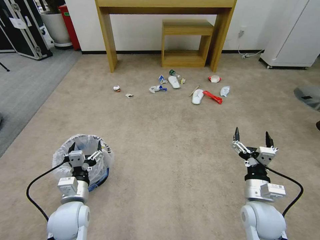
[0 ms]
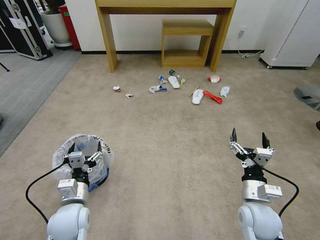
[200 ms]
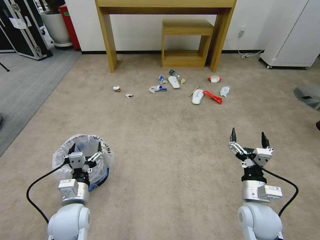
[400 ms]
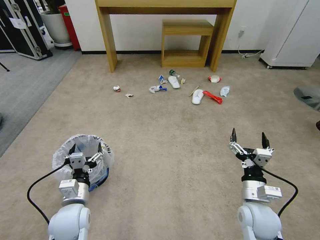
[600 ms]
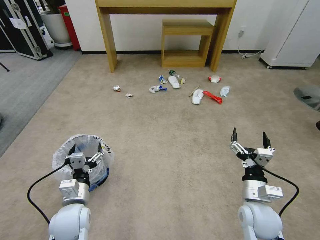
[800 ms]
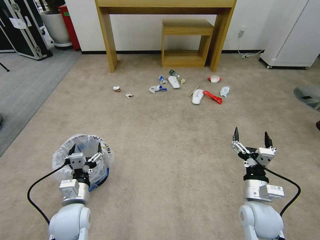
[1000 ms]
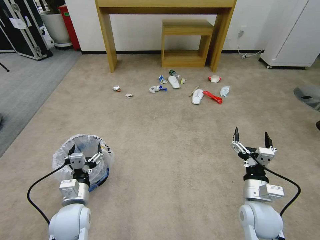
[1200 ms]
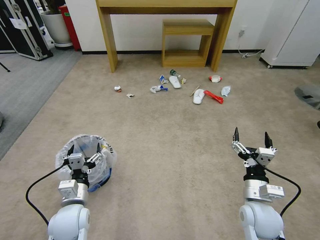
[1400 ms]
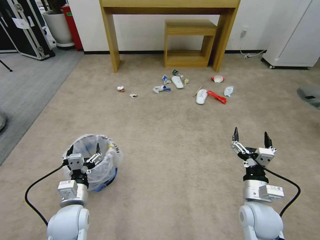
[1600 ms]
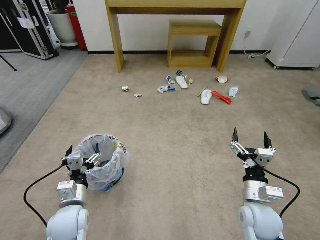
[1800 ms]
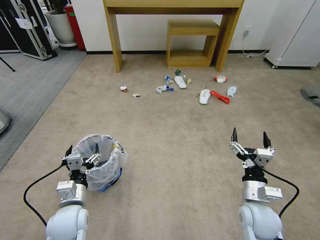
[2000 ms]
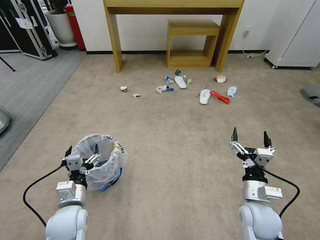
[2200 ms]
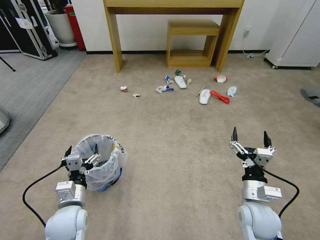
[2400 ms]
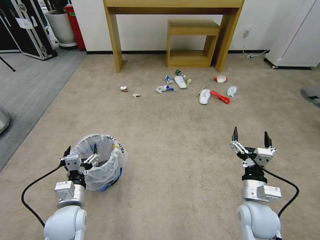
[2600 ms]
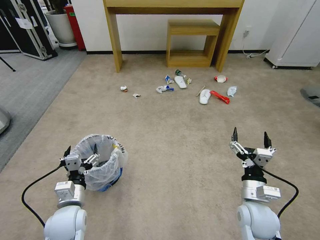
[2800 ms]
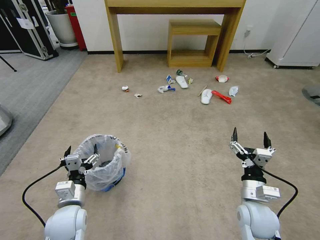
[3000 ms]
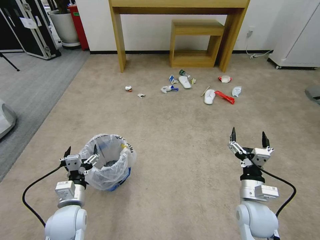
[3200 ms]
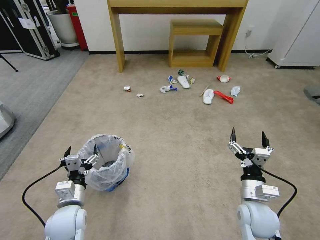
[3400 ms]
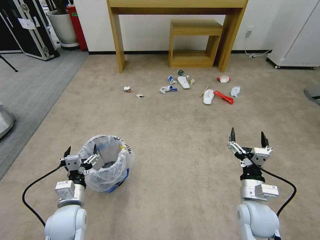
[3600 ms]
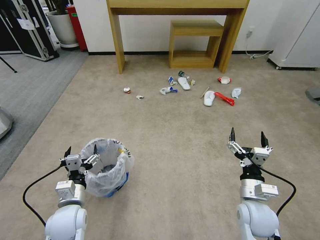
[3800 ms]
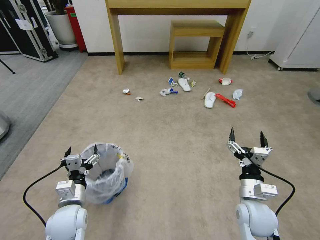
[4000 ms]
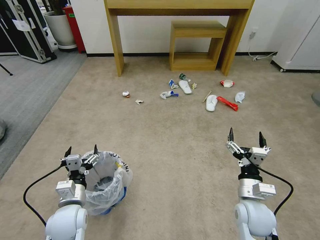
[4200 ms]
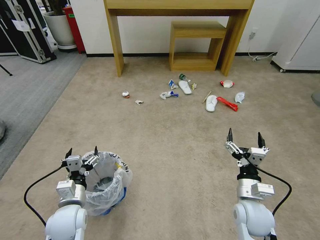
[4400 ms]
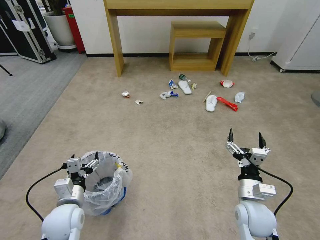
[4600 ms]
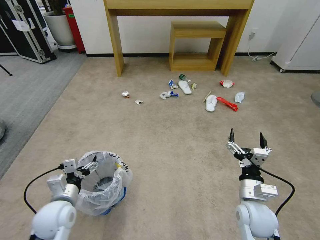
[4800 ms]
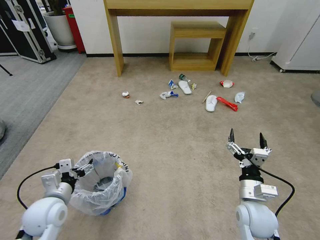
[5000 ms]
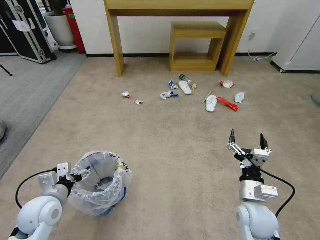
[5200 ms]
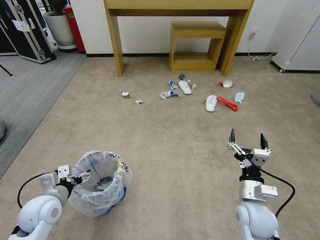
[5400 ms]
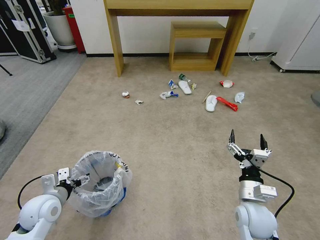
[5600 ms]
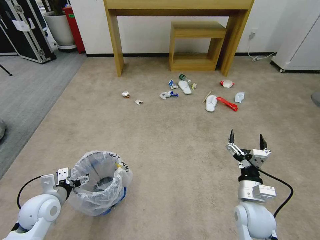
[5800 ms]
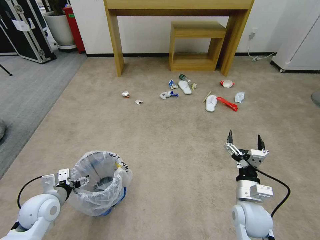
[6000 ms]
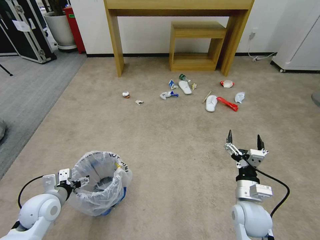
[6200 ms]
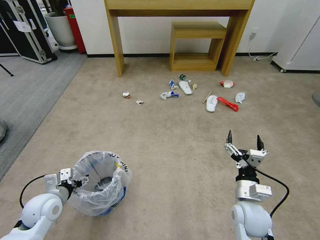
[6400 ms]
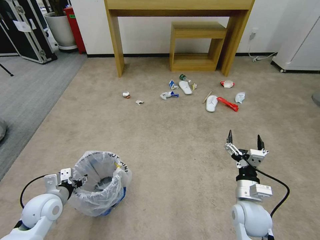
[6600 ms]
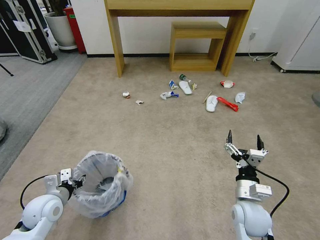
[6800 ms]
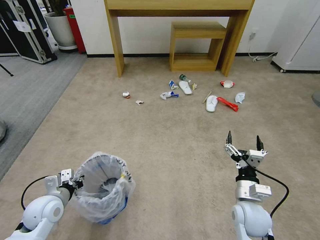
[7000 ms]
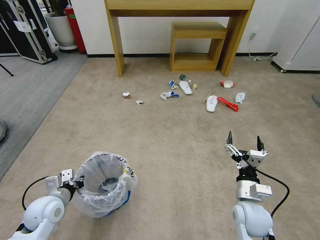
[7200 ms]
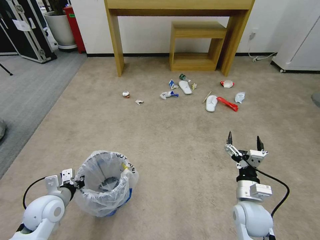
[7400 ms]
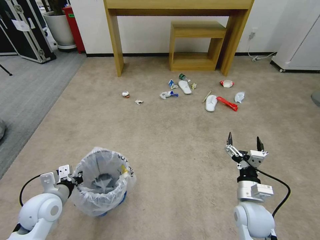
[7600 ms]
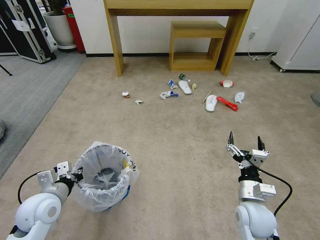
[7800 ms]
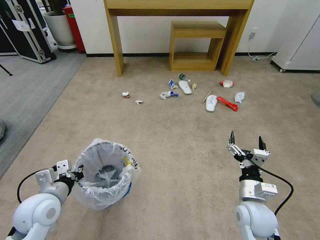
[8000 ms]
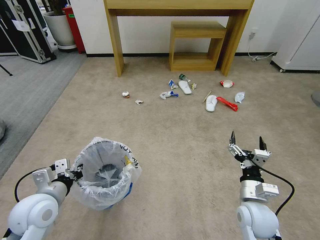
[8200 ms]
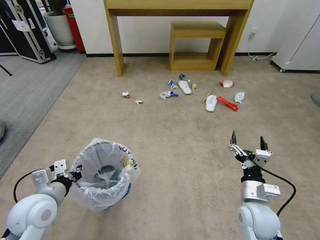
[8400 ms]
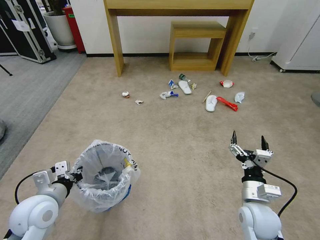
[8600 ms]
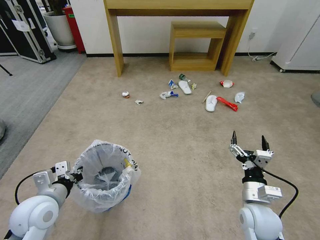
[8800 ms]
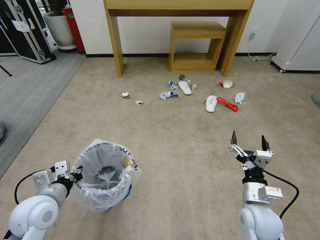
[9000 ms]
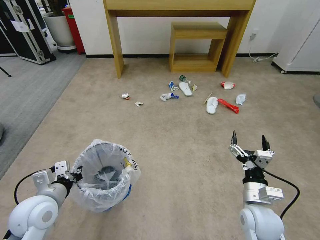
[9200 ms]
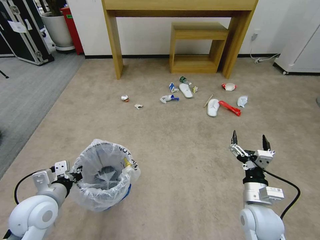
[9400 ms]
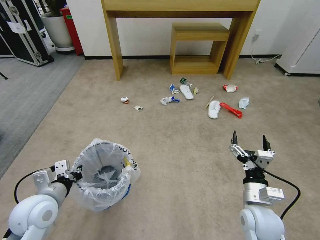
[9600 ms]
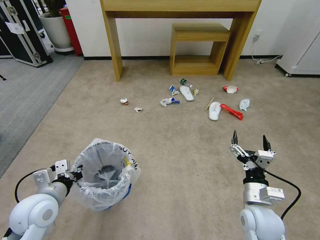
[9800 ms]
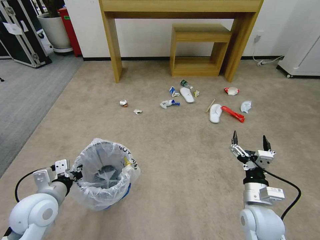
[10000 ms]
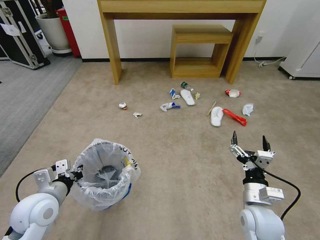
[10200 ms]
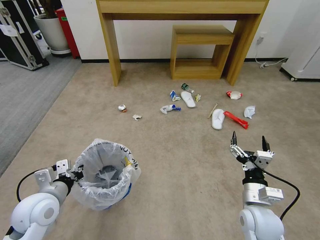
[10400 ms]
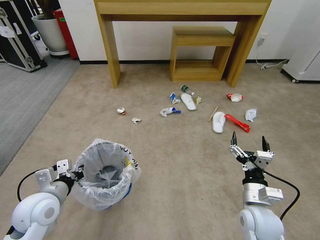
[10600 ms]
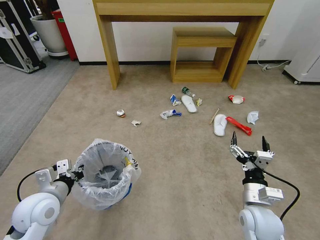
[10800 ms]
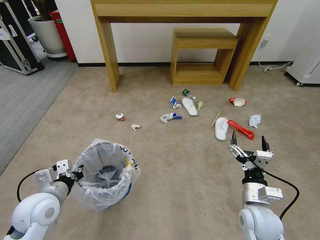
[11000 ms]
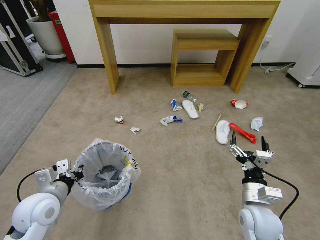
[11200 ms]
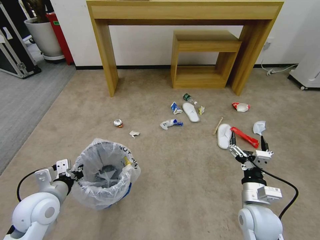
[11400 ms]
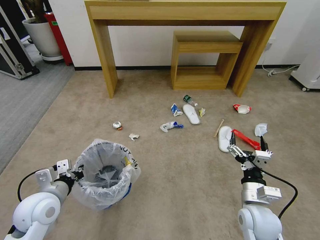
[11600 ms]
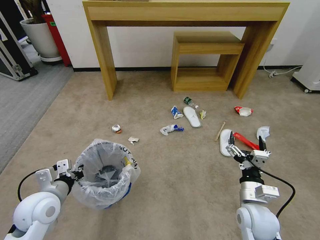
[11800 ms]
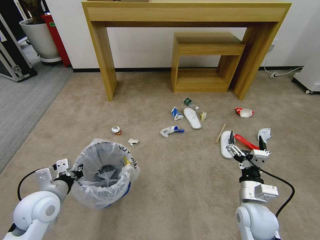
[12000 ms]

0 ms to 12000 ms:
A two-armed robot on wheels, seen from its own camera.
Task of the whole recording: Pick up the trash bin and place the garbage on the floor into it.
1600 ms to 3000 ms: The two grippers keep their place.
3000 ms to 4400 ms: The two grippers keep their place.
4400 ms to 6000 ms: The left gripper shifts approximately 10 cm to the left.
6000 ms to 7600 ms: The left gripper closes.
7600 ms to 9000 ms: The left gripper changes place by about 5 cm.

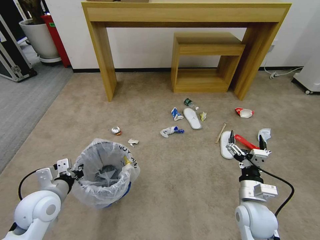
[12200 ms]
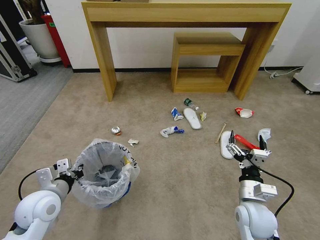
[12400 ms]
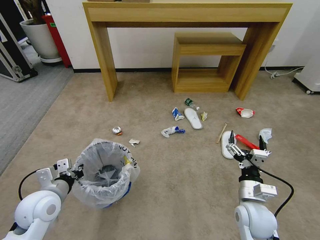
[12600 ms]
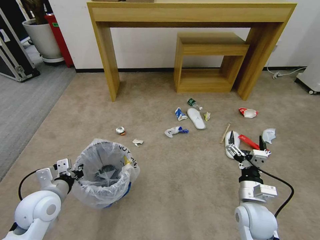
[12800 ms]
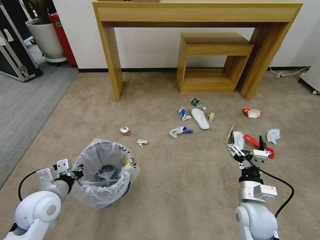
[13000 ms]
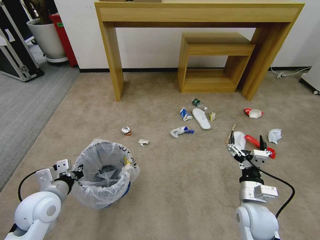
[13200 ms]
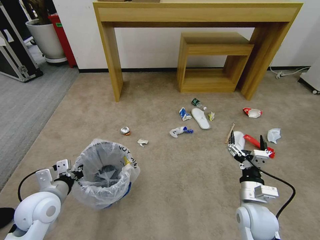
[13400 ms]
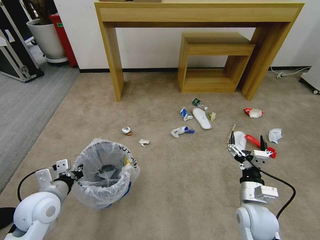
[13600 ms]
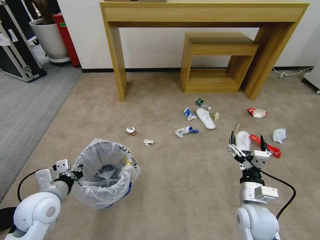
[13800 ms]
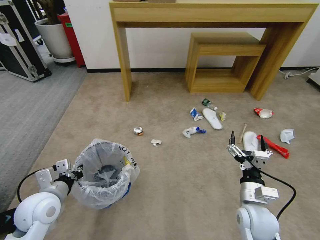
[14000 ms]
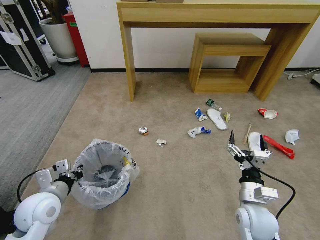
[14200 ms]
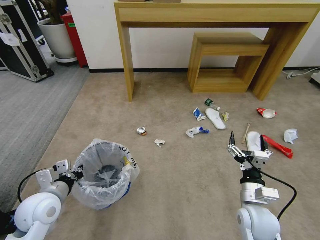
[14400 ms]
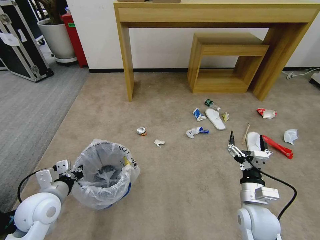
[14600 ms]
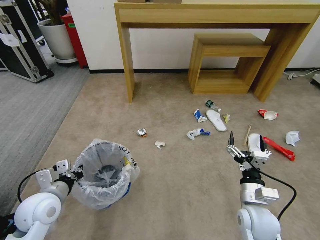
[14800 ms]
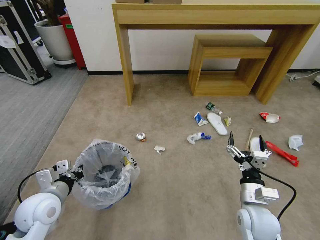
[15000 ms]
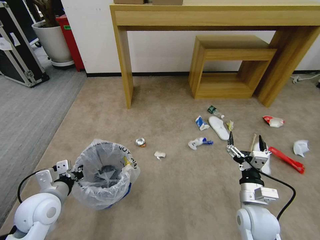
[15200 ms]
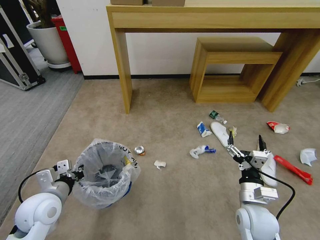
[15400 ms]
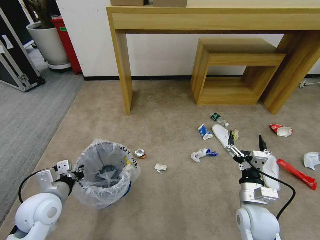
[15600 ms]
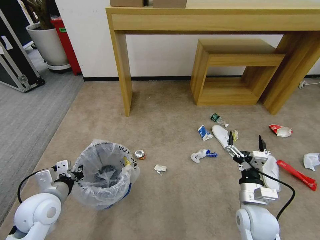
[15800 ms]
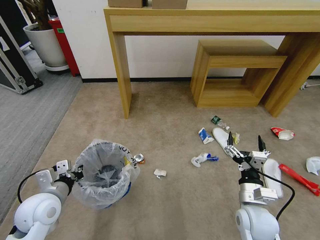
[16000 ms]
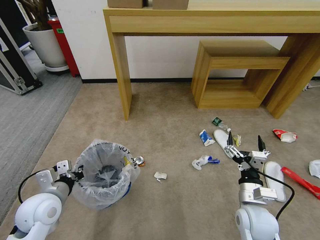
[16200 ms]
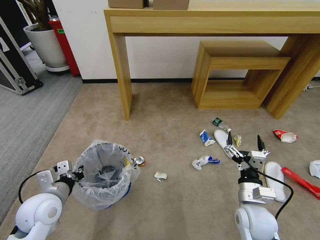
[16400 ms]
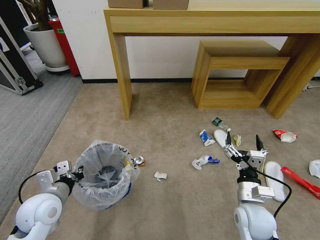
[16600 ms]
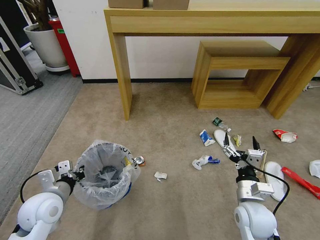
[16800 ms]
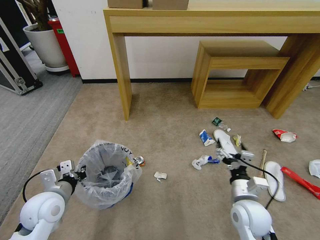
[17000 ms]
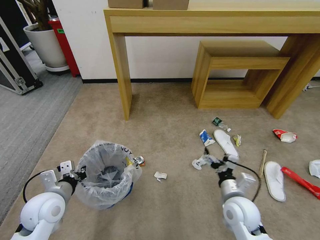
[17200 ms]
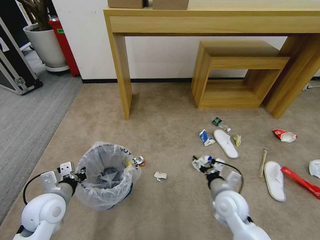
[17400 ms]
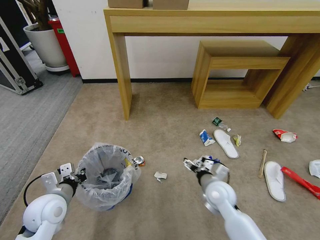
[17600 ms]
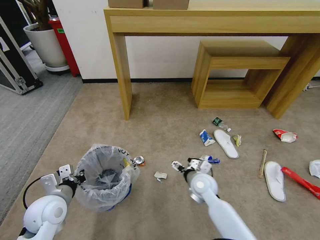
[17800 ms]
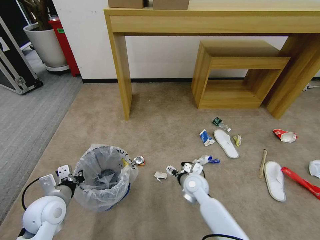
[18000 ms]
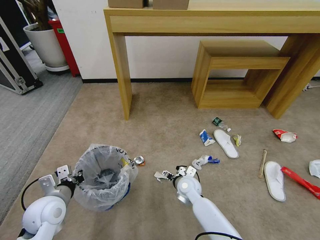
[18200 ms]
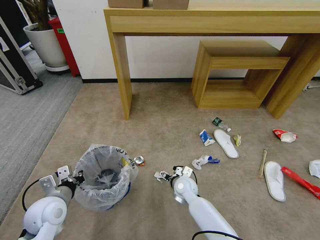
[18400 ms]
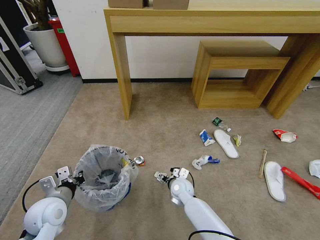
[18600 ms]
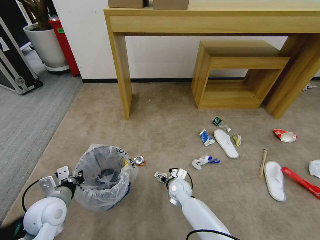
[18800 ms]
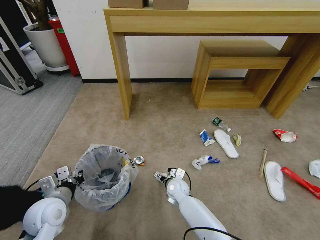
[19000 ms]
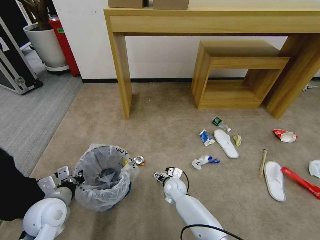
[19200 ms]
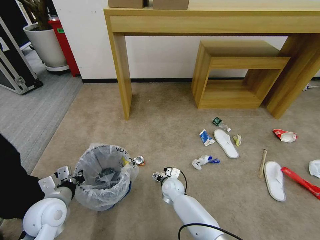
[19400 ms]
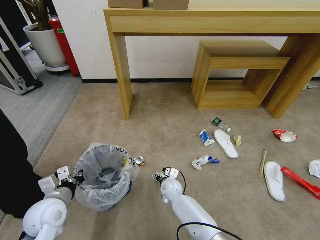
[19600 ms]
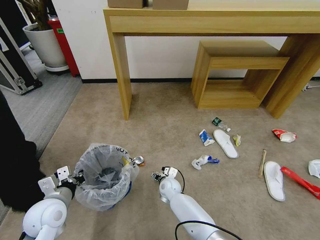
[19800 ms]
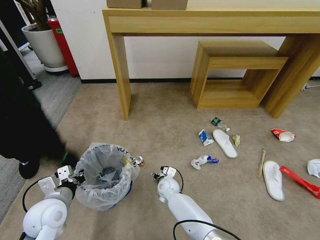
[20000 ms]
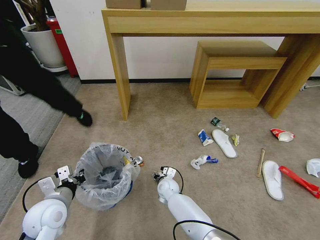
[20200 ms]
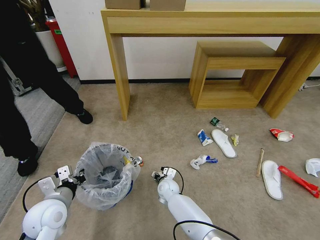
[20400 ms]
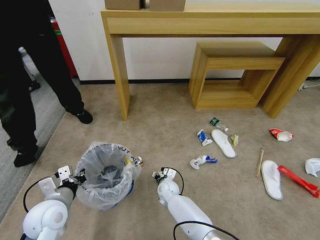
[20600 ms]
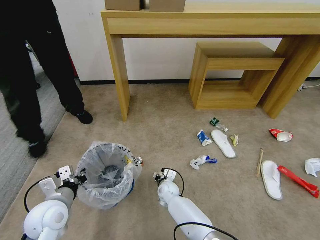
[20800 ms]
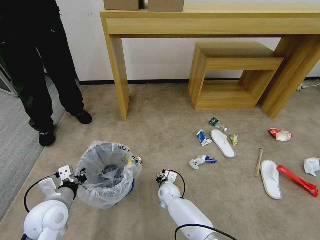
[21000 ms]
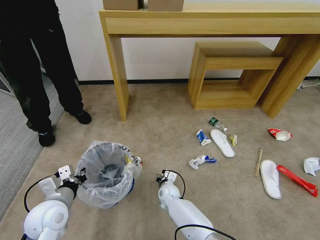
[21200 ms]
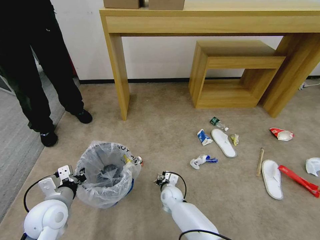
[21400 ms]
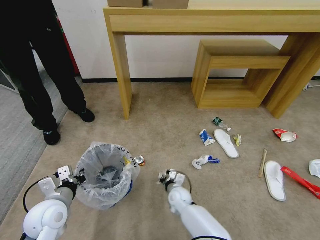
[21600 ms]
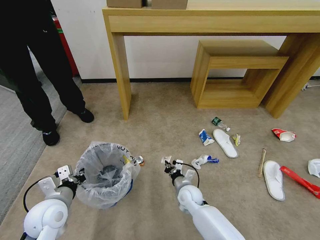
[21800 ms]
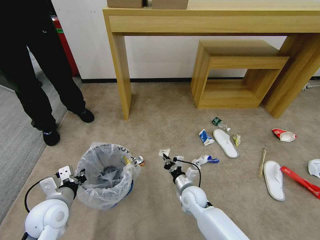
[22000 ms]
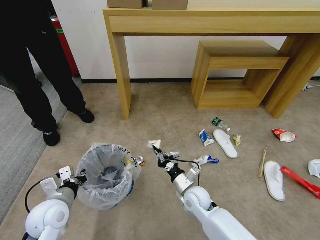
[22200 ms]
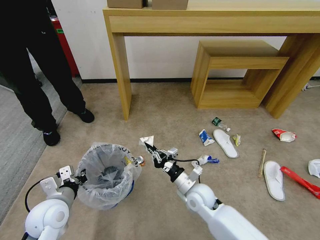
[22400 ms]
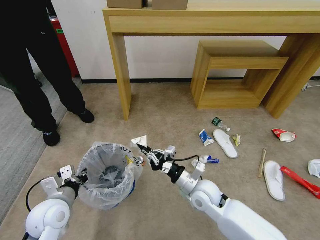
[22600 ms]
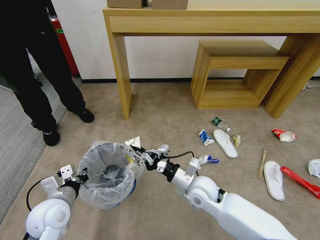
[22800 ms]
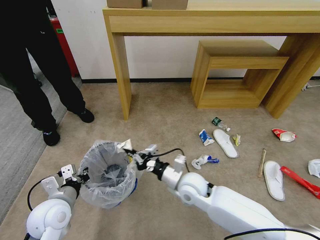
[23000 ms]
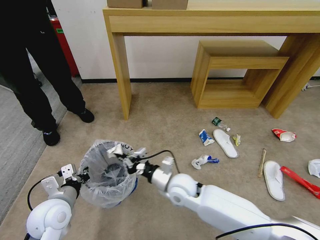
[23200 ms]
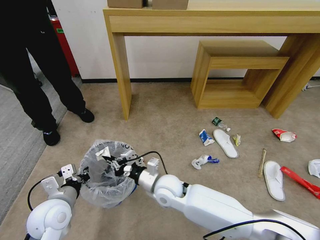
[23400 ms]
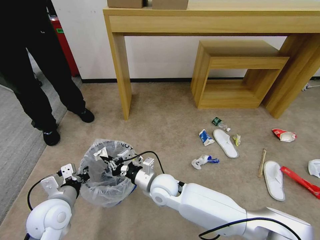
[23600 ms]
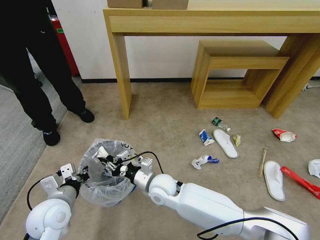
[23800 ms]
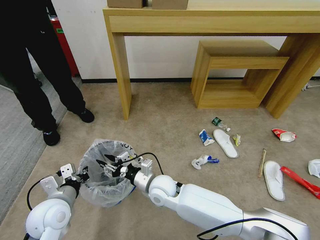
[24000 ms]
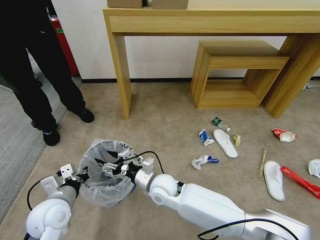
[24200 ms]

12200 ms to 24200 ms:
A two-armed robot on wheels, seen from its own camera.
Task of the whole recording: Pick up the trash bin and place the garbage on the floor into it.
16600 ms to 18200 ms: The right gripper moves to the left, forward and downward, some 25 cm.
18200 ms to 19800 ms: The right gripper goes some 10 cm downward and to the left.
19800 ms to 21200 ms: The right gripper closes up.
21200 ms to 22600 ms: The right gripper is displaced upward and to the right by approximately 20 cm.
22600 ms to 24200 ms: The right gripper shifts about 15 cm to the left, and opens its fingers.
